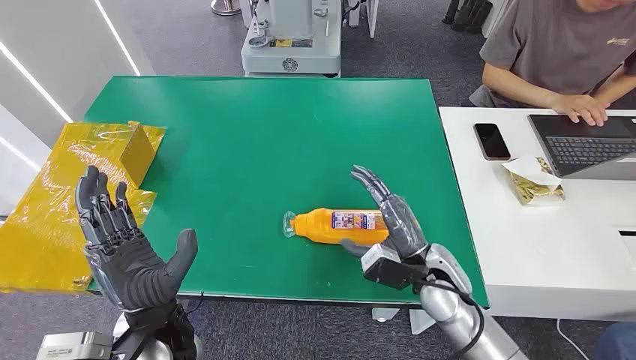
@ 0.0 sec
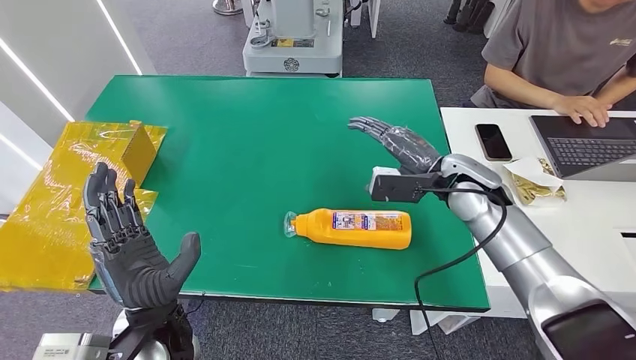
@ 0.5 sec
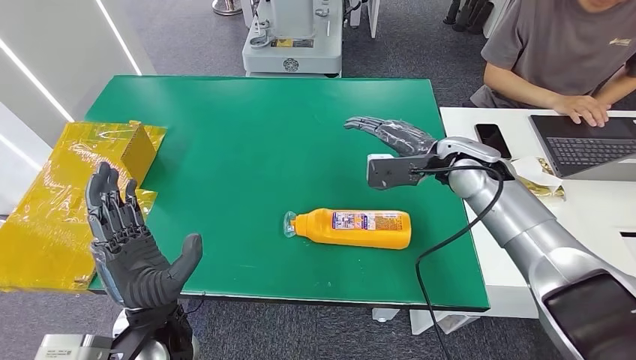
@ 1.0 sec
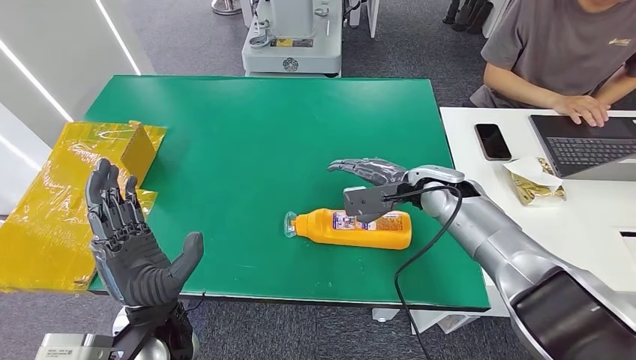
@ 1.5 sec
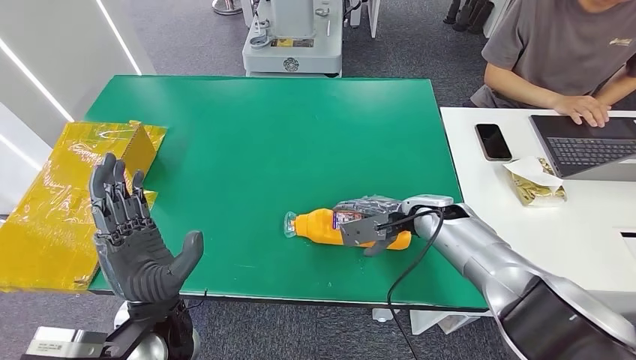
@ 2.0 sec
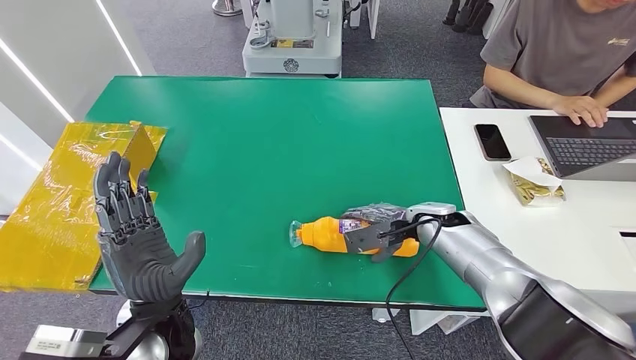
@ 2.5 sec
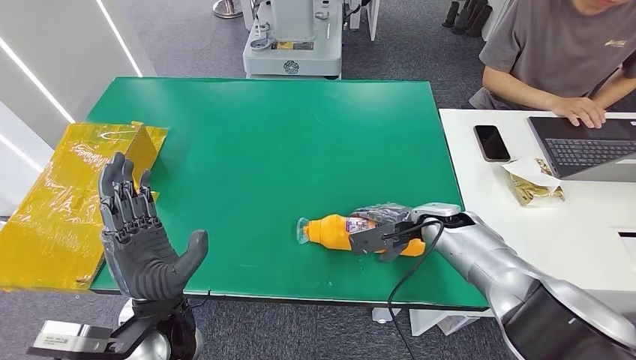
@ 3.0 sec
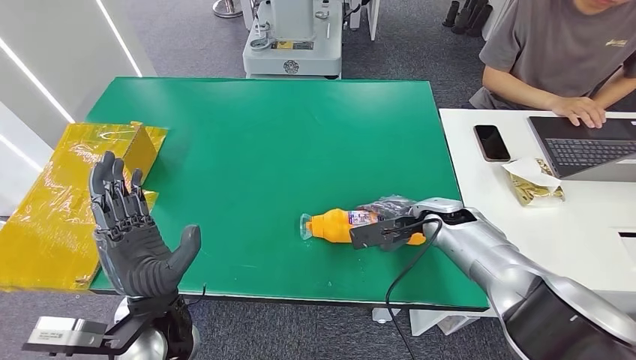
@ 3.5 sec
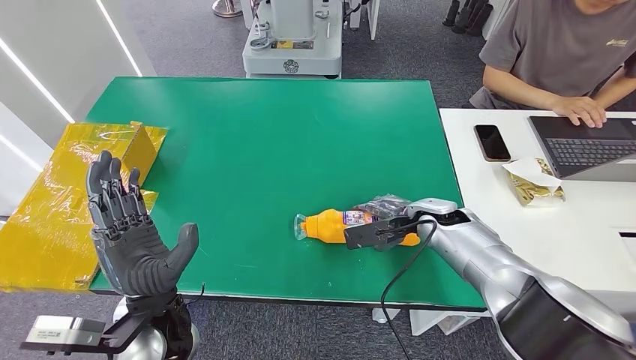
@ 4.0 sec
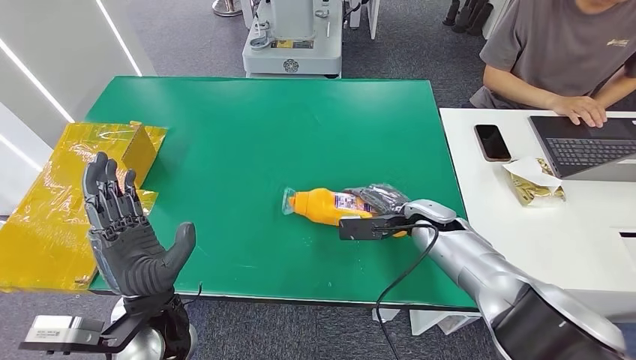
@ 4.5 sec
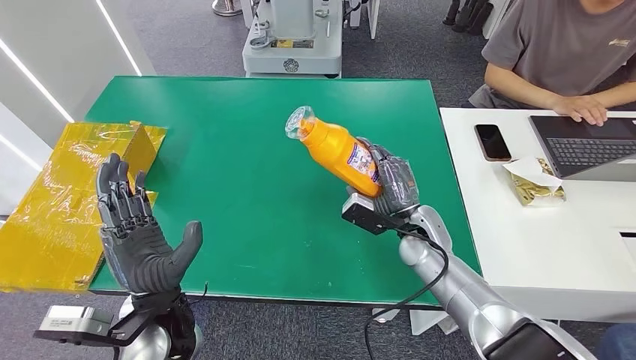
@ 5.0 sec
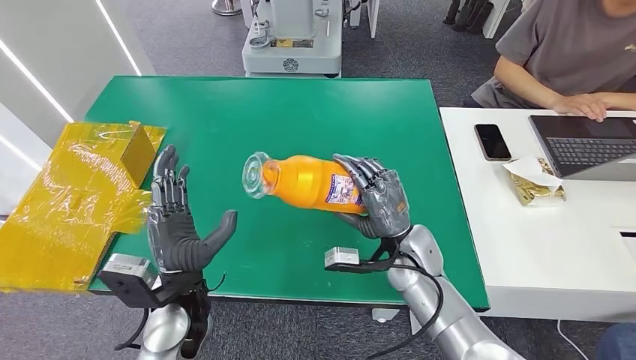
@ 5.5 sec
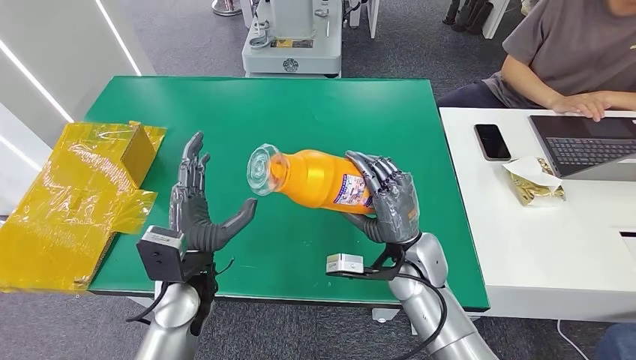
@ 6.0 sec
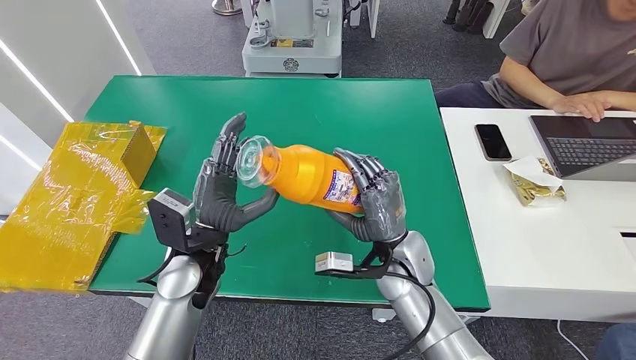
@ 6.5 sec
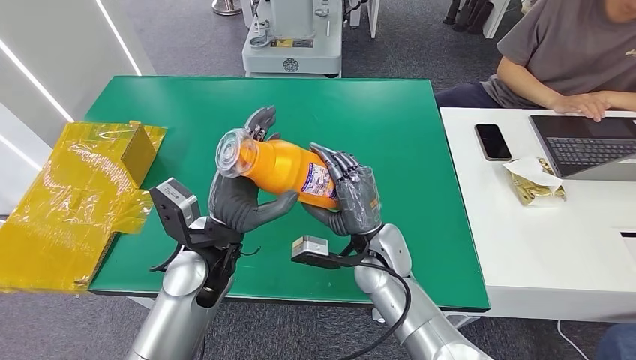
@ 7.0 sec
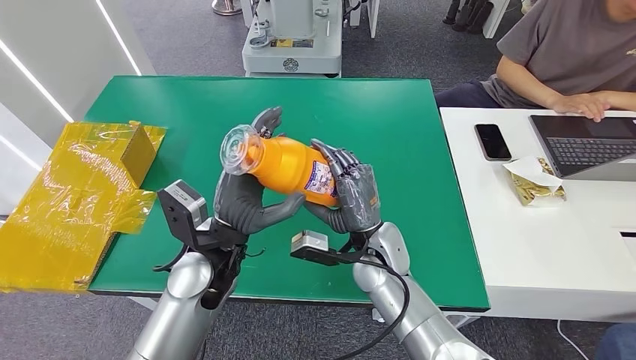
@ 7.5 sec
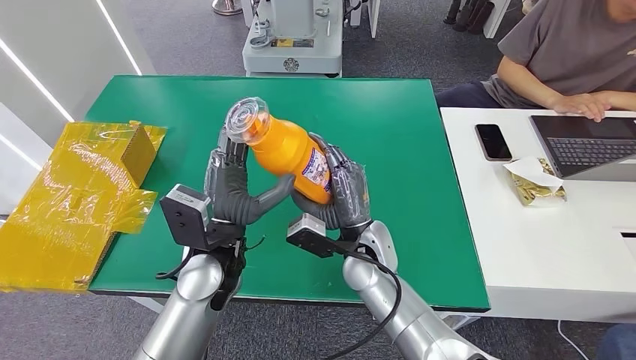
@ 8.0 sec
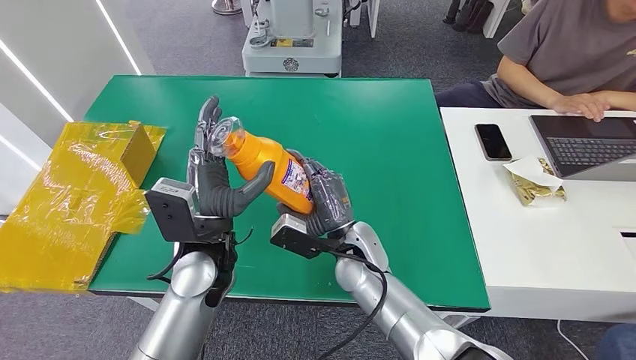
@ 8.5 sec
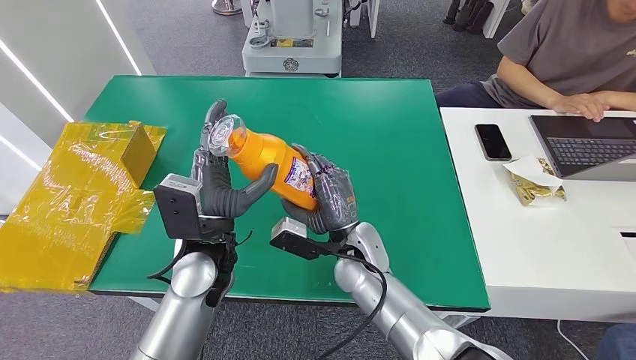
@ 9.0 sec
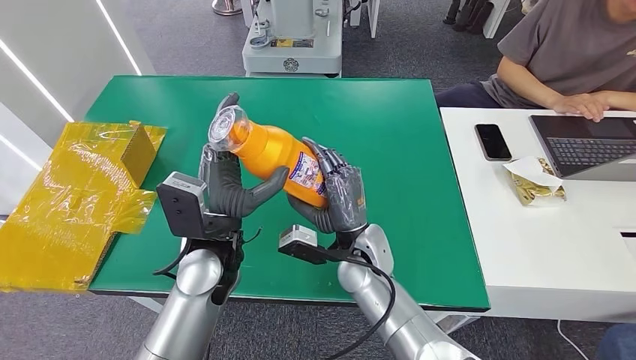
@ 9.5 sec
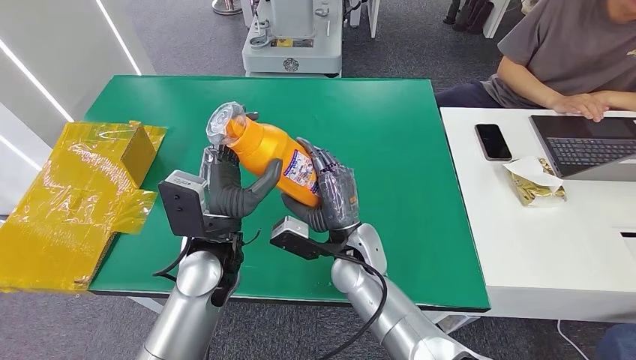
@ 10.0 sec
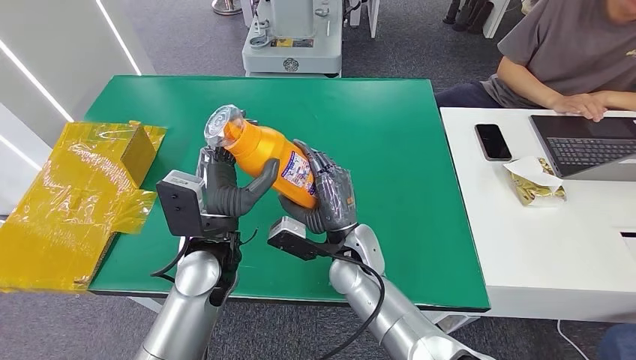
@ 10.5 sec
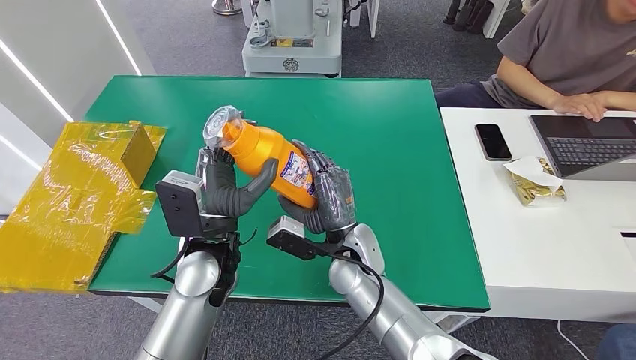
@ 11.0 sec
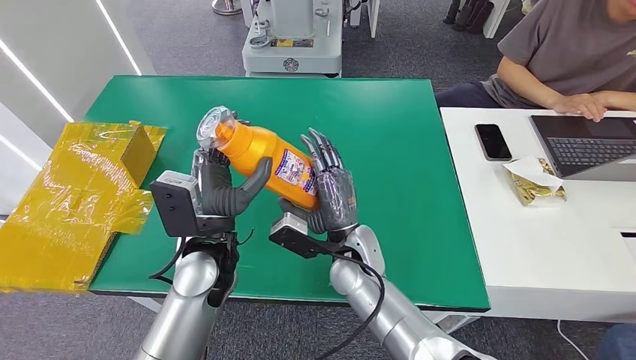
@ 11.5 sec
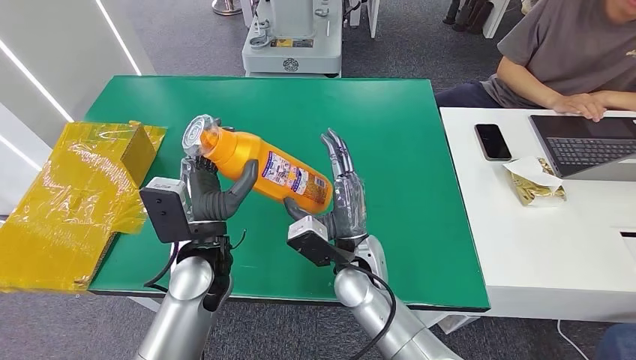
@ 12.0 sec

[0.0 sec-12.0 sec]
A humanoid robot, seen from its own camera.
Step, 0.0 sec to 4.5 sec: Pick up the bottle from the table.
2.0 sec to 4.0 sec: The hands move only a little.
6.0 sec to 8.0 sec: The left hand changes place by approximately 5 cm, while the right hand shifts approximately 10 cm to the left.
8.0 sec to 12.0 sec: The hands move only a little.

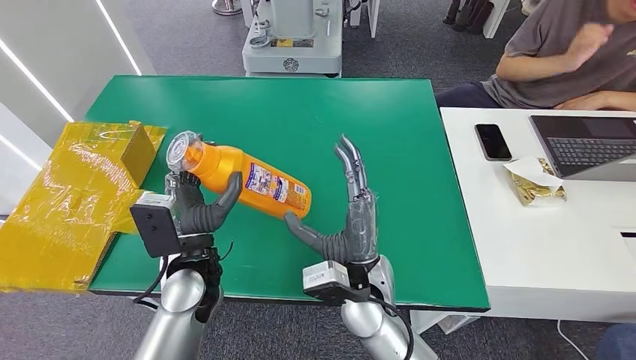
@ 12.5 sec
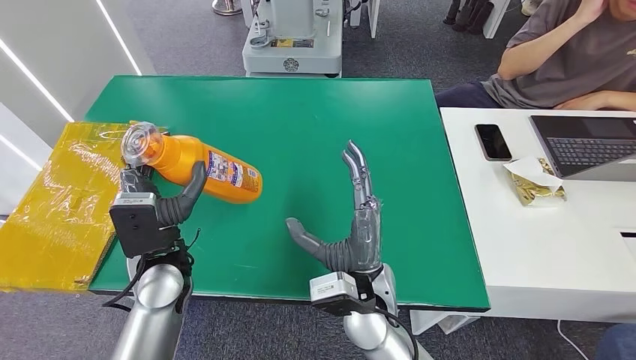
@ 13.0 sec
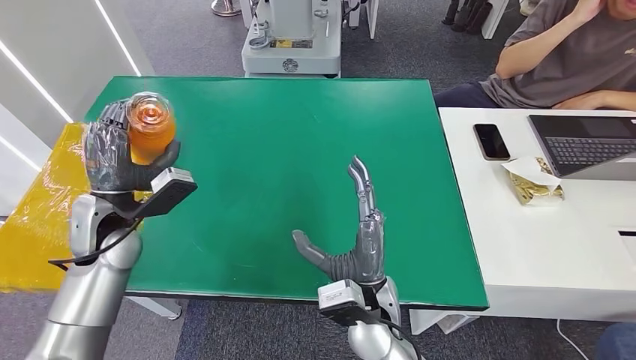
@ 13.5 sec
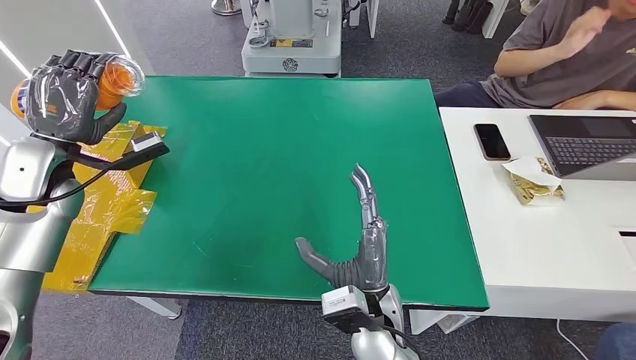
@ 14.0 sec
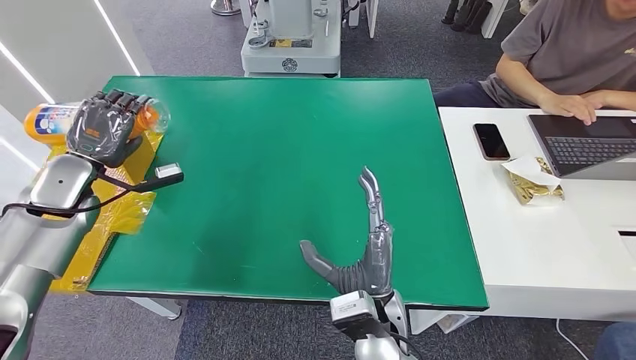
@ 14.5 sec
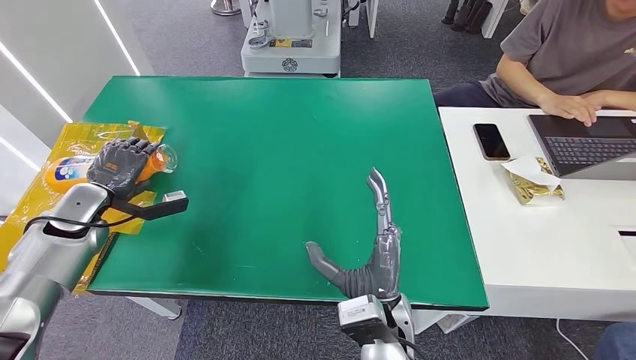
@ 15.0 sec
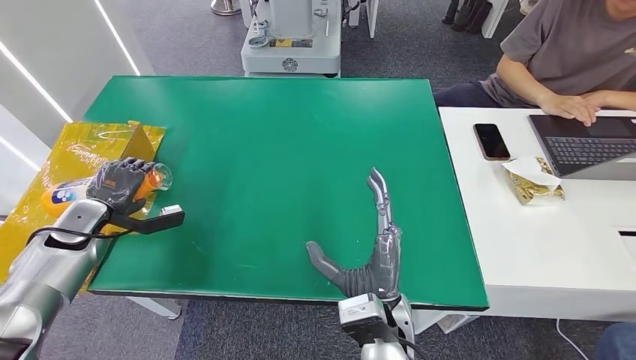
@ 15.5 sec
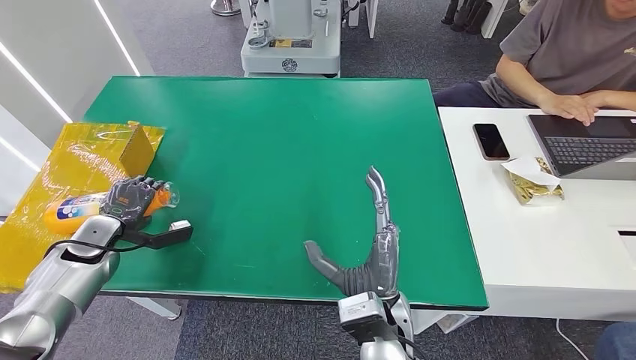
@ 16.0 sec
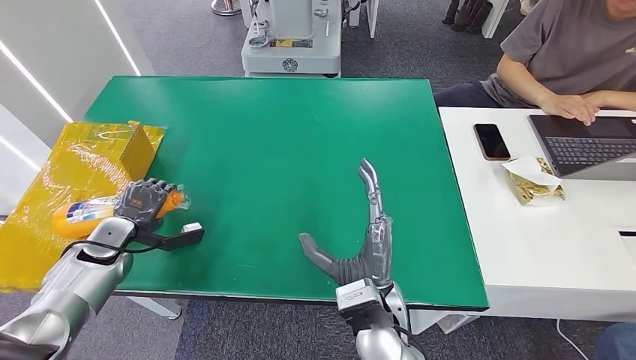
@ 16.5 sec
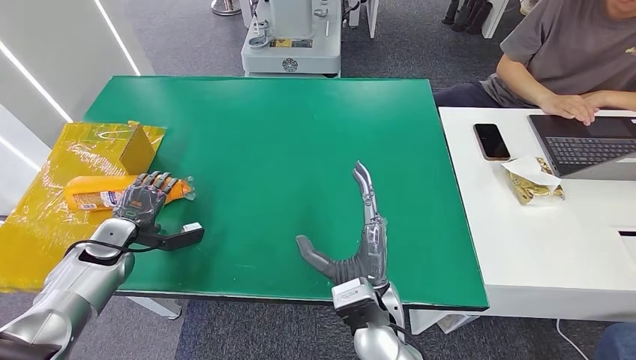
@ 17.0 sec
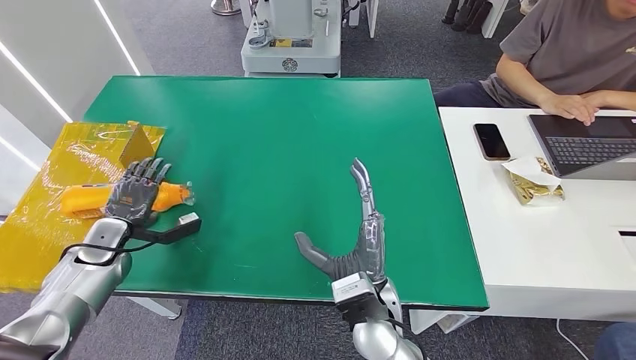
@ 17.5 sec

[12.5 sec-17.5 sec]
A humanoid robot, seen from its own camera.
Step, 12.5 sec to 17.5 sec: Turn the bottle to the front side.
15.0 sec to 17.5 sec: The left hand heads downward, covering approximately 5 cm.

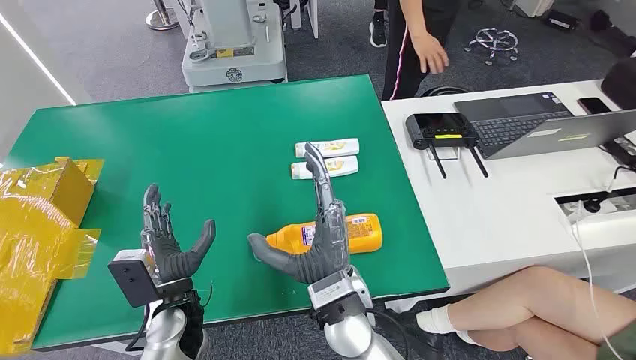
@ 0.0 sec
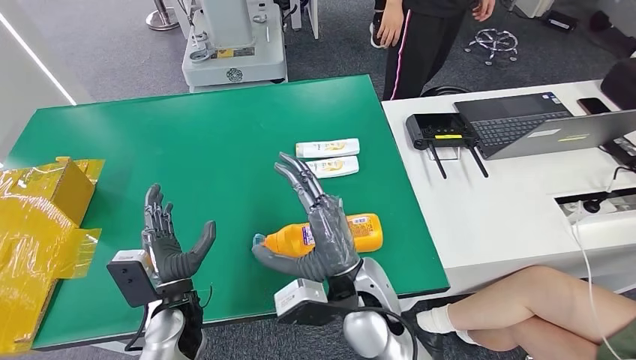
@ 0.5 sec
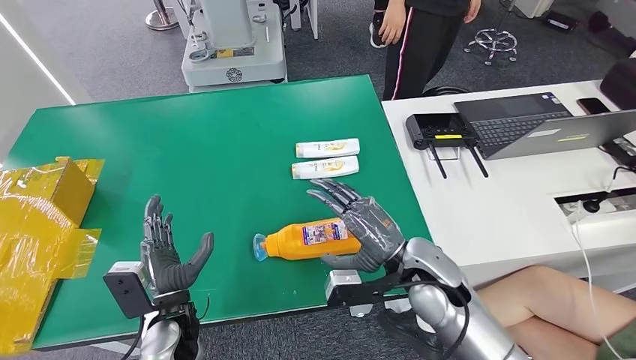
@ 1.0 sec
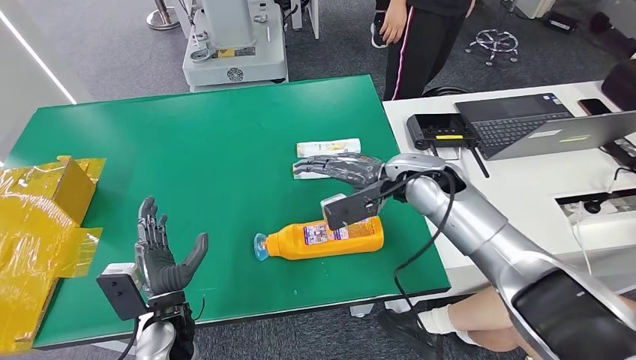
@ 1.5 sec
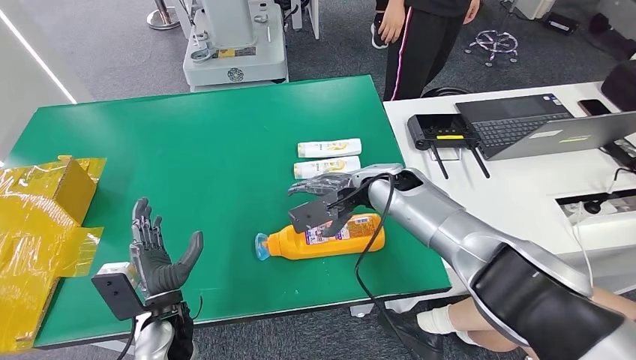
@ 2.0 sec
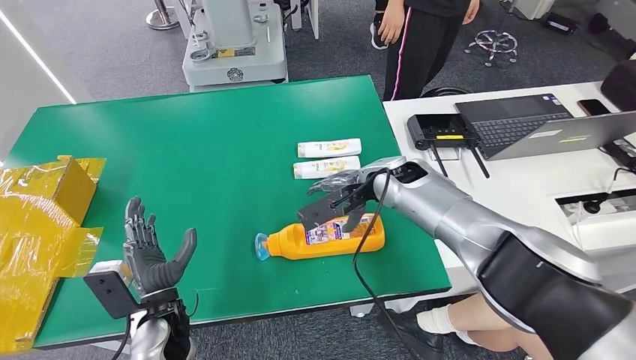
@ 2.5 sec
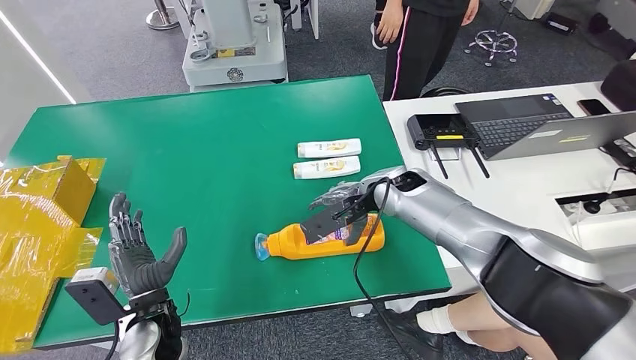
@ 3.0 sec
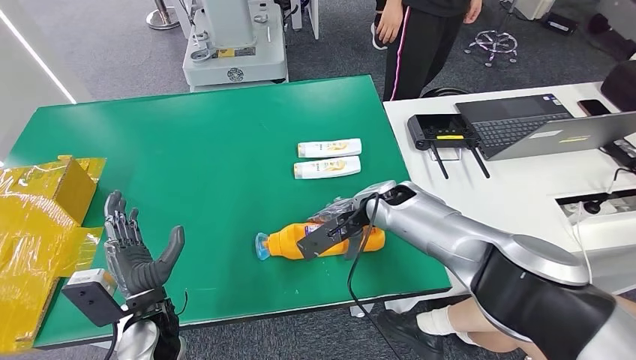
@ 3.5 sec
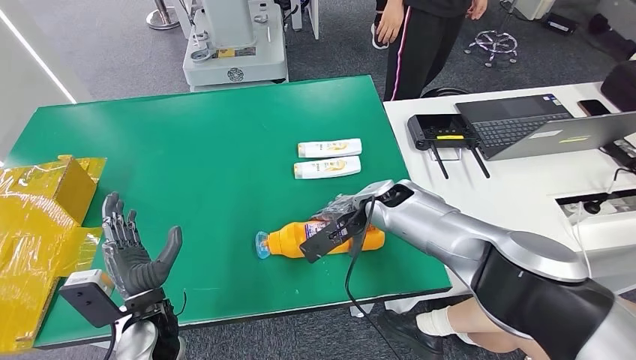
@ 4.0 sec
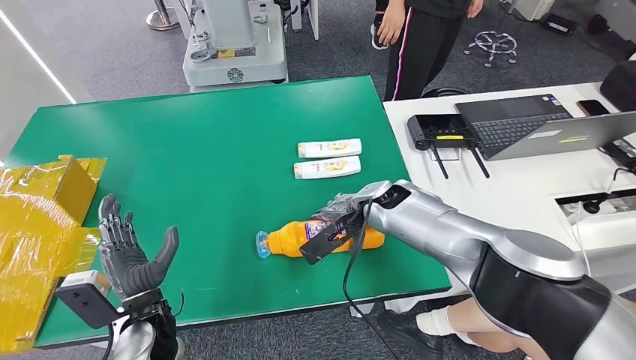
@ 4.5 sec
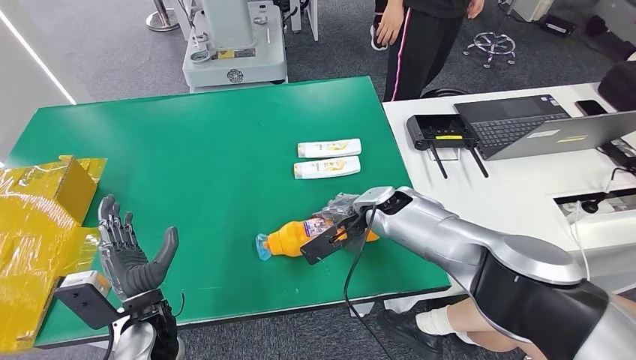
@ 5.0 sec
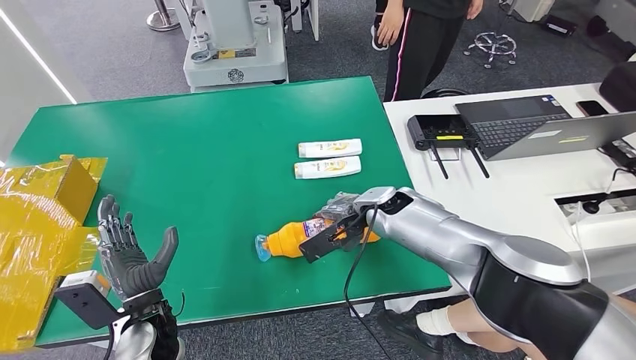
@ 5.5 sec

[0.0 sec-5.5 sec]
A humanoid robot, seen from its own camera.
2.0 sec to 3.5 sec: The hands move only a little.
3.5 sec to 5.5 sec: The hands stay close to where they were, moving slightly.
